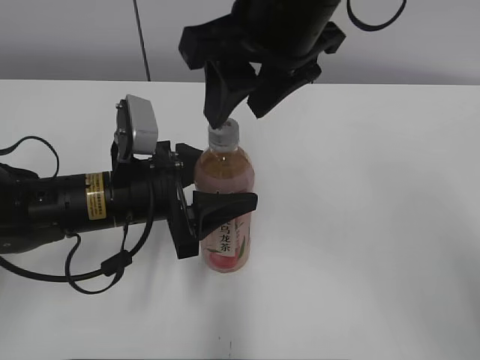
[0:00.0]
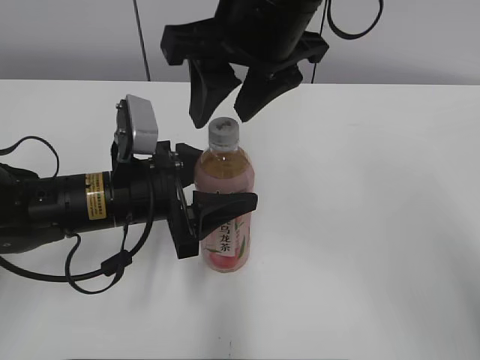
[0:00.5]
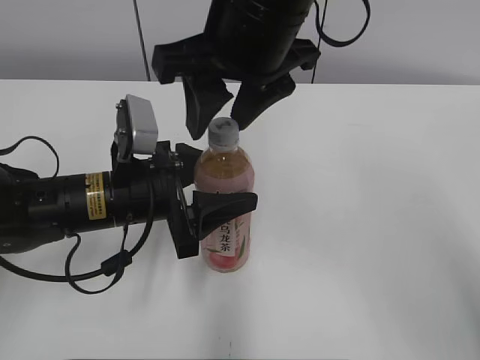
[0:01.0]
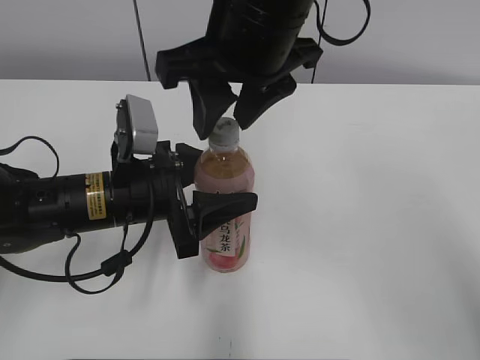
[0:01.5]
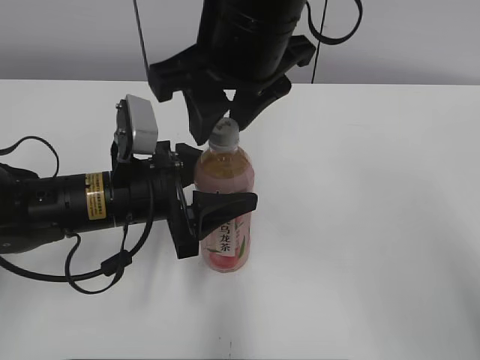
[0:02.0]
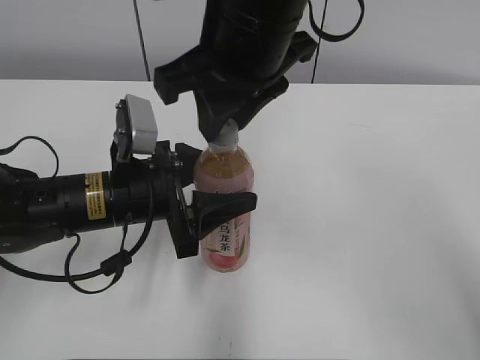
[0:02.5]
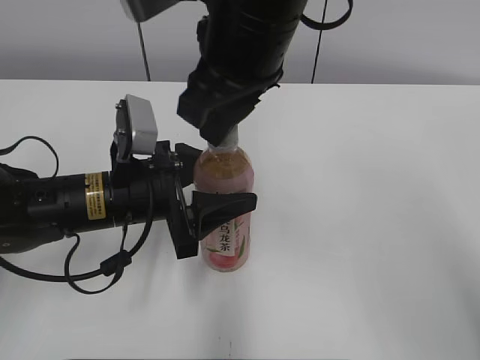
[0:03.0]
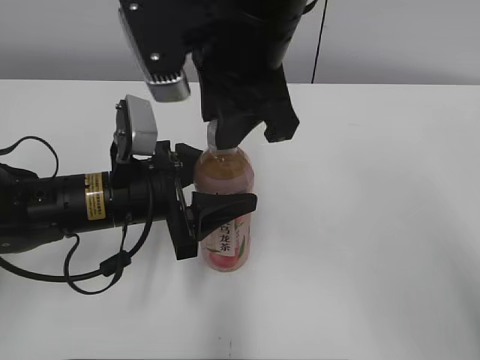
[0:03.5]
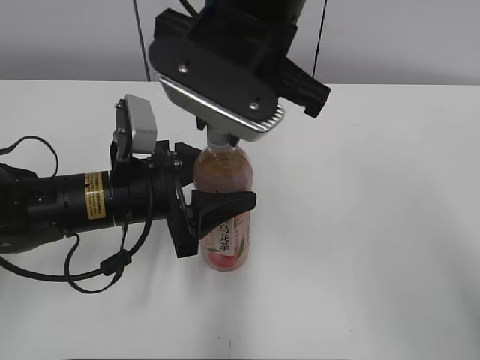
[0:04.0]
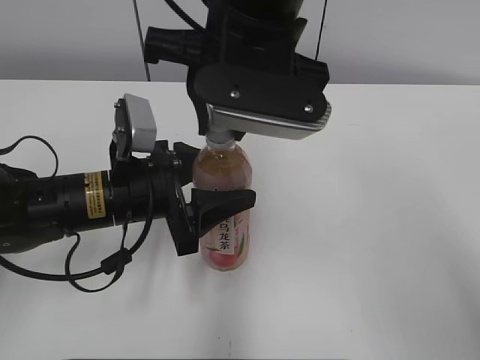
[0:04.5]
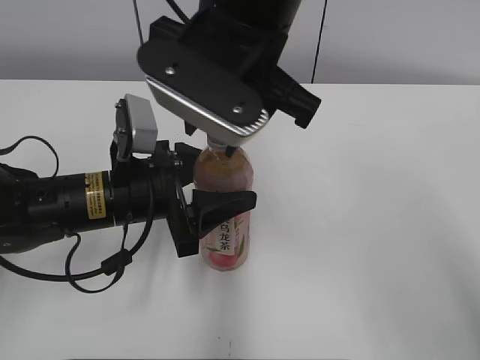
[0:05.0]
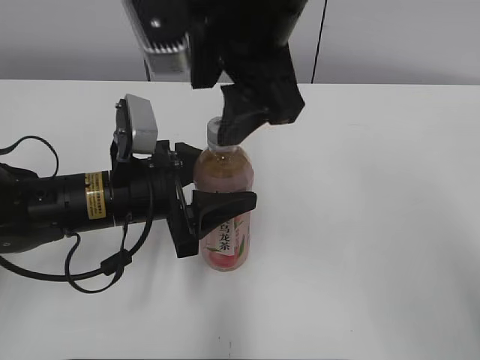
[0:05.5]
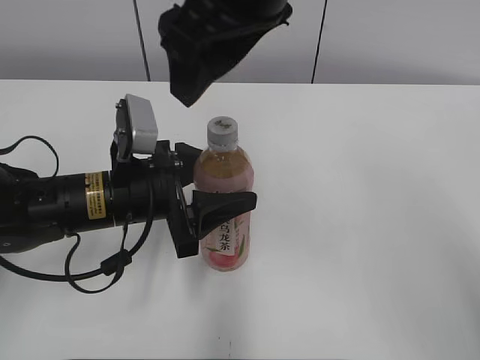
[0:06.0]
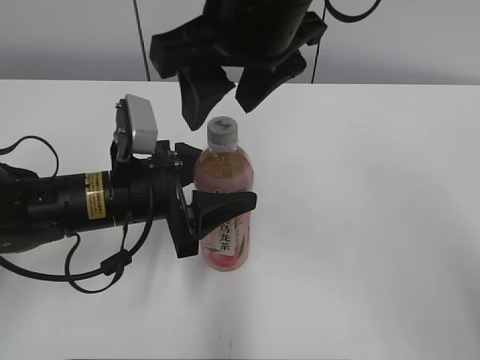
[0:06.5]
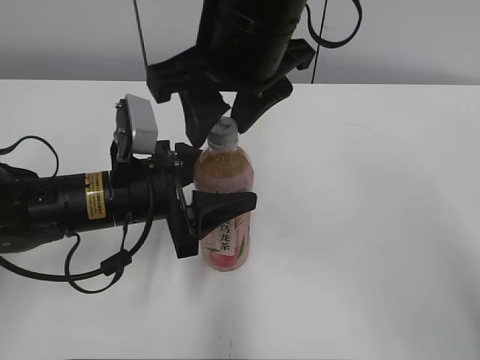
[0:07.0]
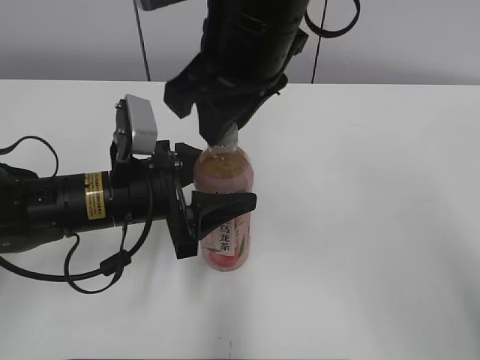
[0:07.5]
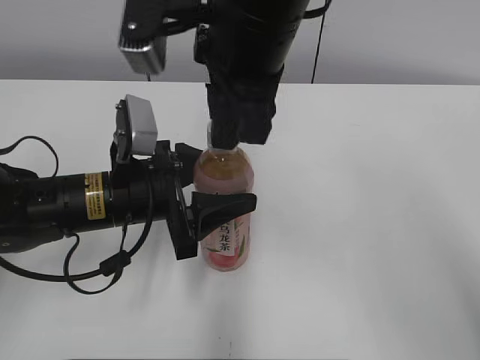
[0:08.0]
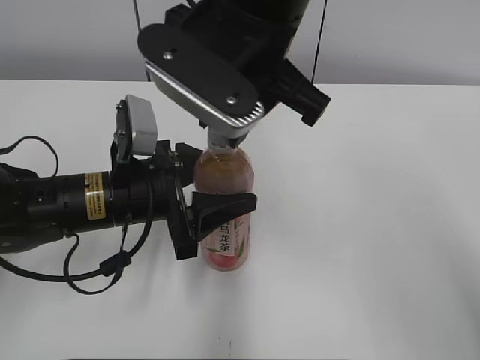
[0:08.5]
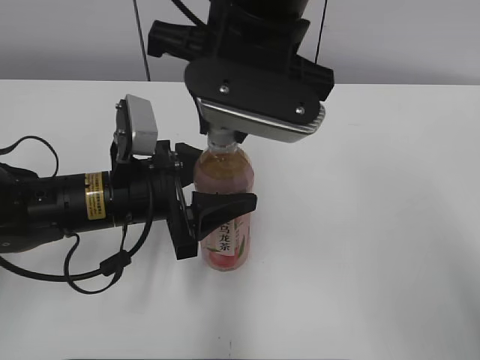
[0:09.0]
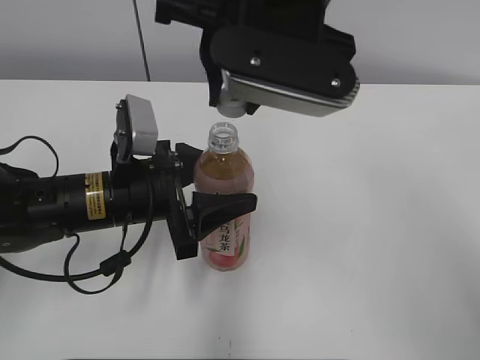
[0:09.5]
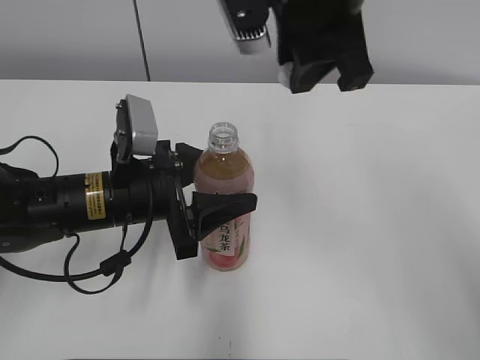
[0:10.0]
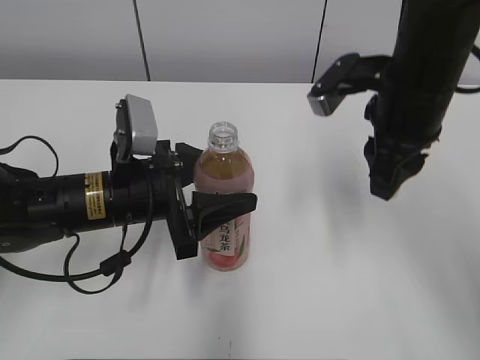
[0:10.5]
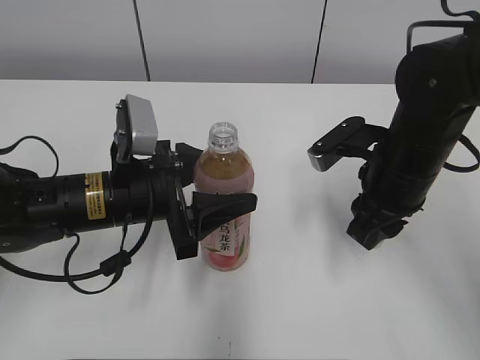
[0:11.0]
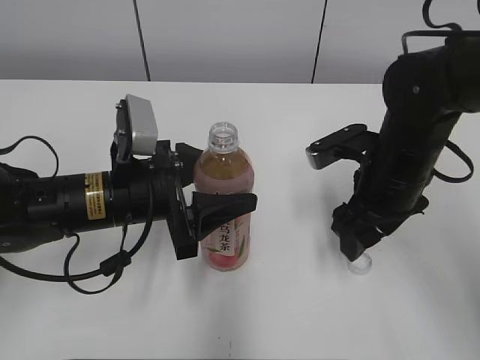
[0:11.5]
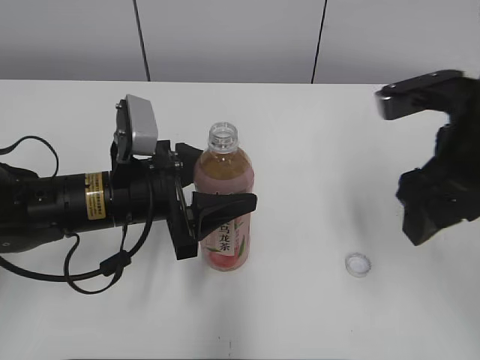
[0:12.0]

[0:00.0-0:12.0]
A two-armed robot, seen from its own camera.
Step, 0:09.5 to 0:11.5: Place the bottle cap on the right.
0:00.0 to 0:02.0: The grippers stay close to where they were, moving slightly.
0:02.0 to 0:04.0: The right gripper closes its fingers.
0:04.0 to 0:06.0: The right gripper shifts by some 5 cm, and opens.
0:06.0 to 0:08.0: The right gripper closes up.
0:08.0 to 0:10.0: The right gripper shifts approximately 5 cm to the right.
0:10.0 to 0:12.0: The right gripper goes roughly 15 cm to the right, downward and backward, and opens up.

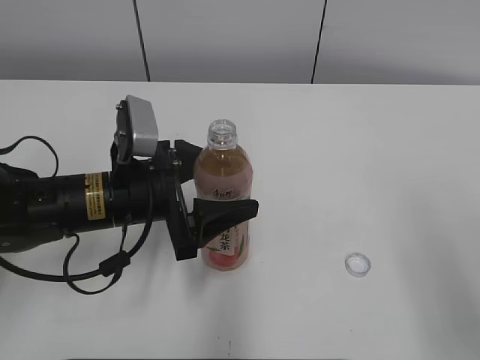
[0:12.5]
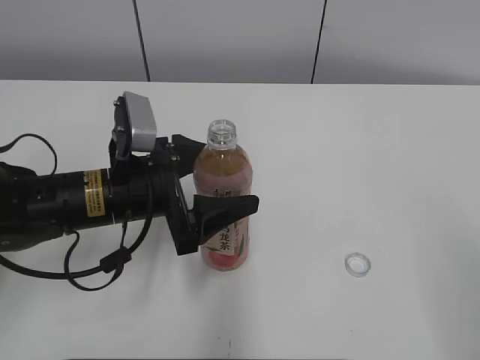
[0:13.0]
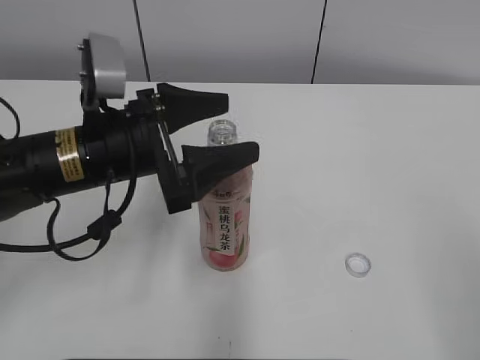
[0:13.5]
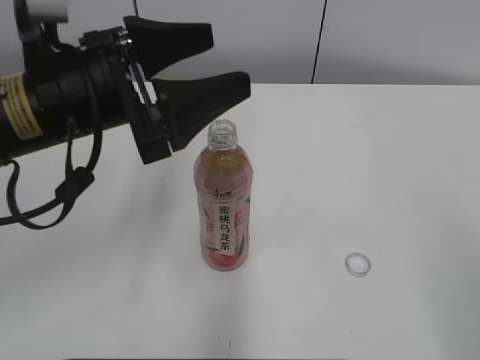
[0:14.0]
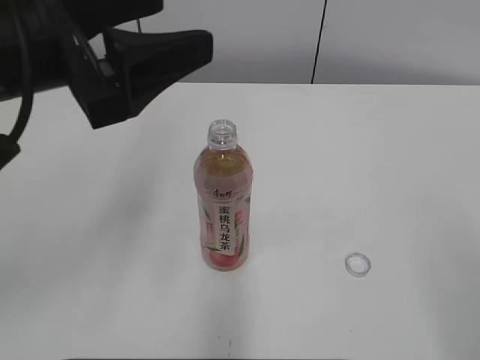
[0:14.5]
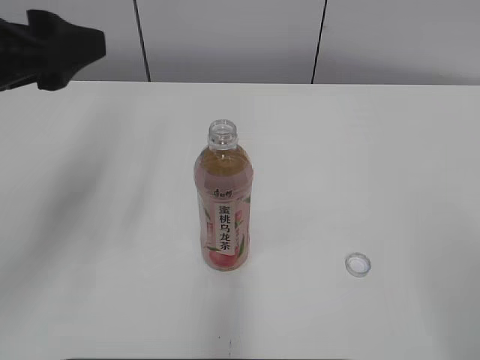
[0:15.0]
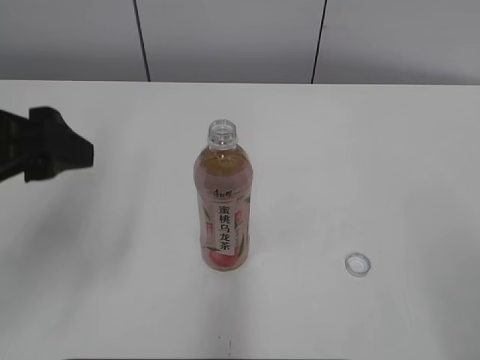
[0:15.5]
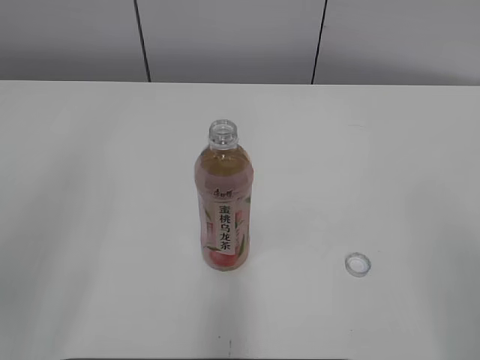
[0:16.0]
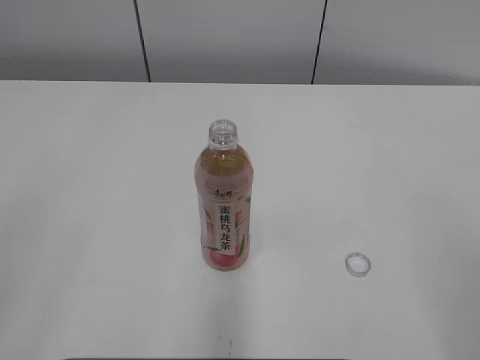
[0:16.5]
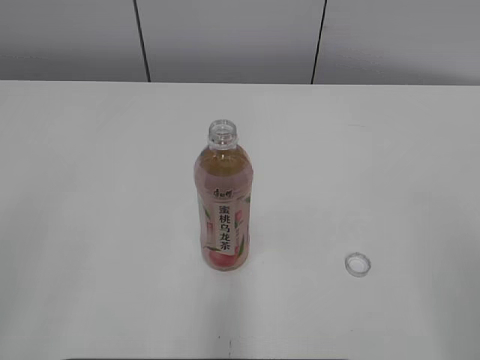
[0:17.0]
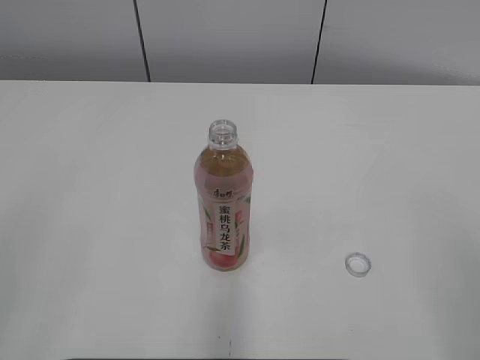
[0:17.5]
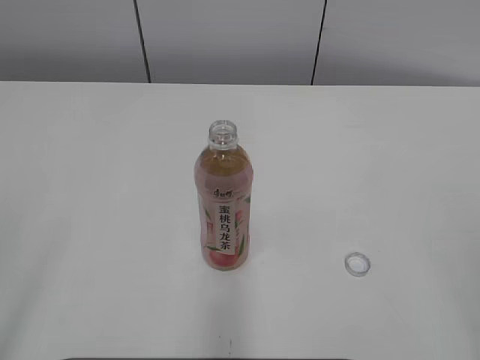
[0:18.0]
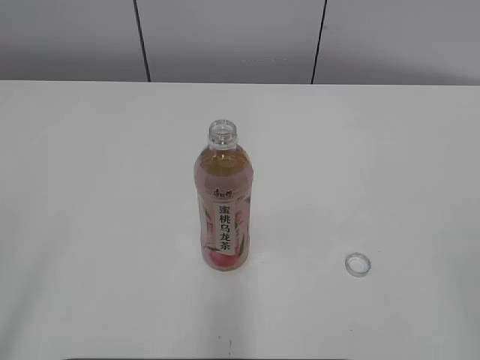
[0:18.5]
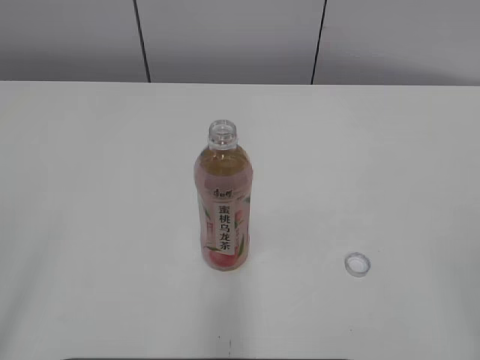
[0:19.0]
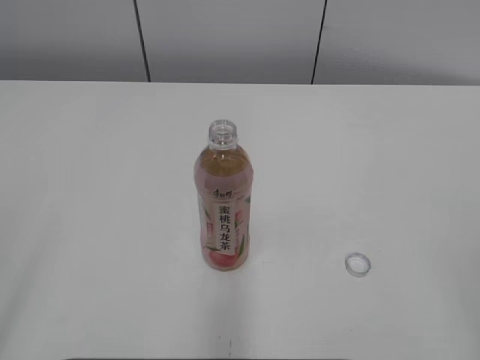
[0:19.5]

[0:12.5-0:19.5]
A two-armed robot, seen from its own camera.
0:12.5 to 0:14.5: The right gripper is displaced backward by some 5 cm. Meanwhile the left gripper shifts approximately 15 cm upward.
0:14.5 to 0:16.0: The left gripper goes some 15 cm backward and to the left.
